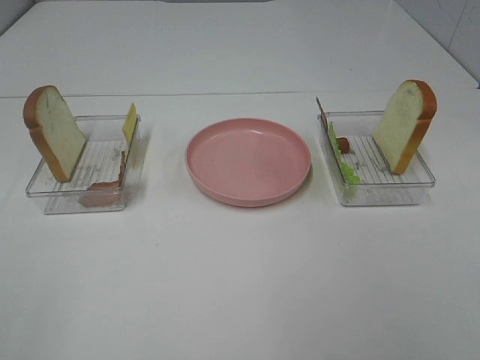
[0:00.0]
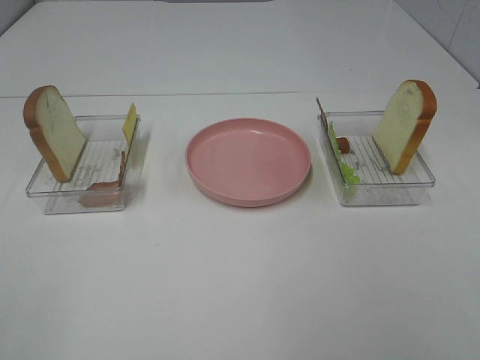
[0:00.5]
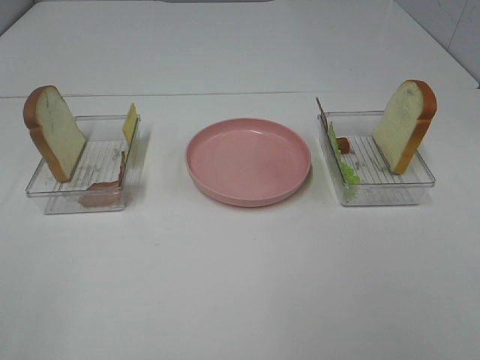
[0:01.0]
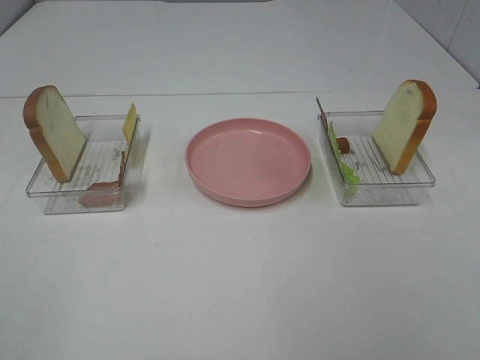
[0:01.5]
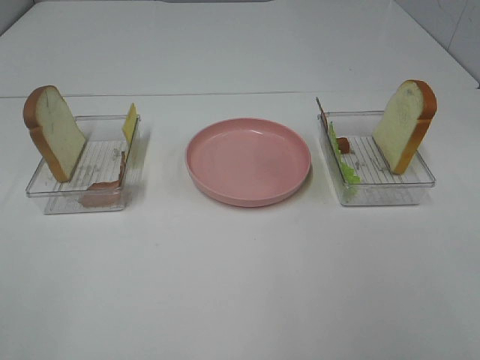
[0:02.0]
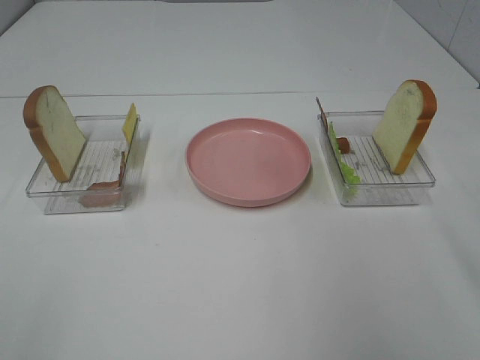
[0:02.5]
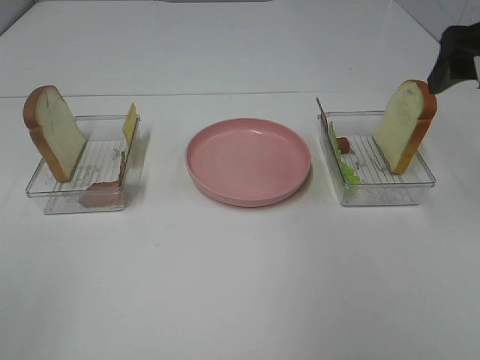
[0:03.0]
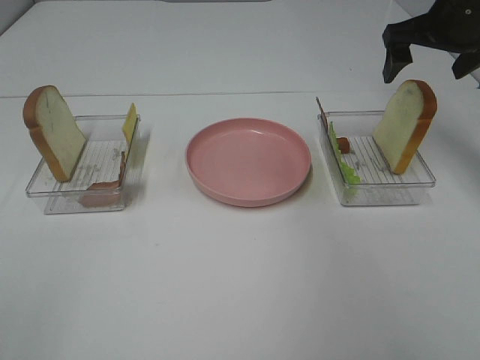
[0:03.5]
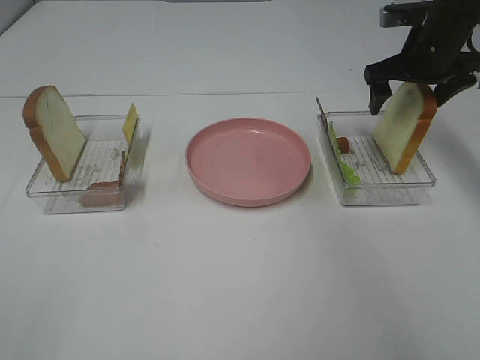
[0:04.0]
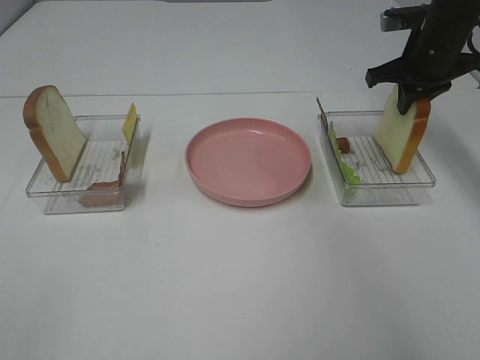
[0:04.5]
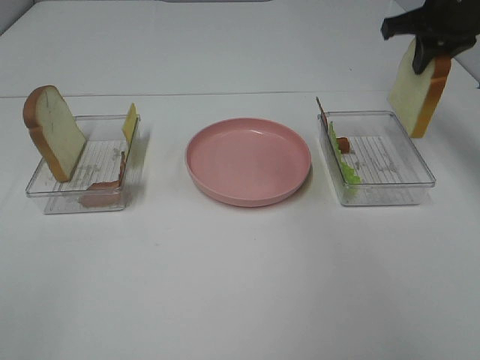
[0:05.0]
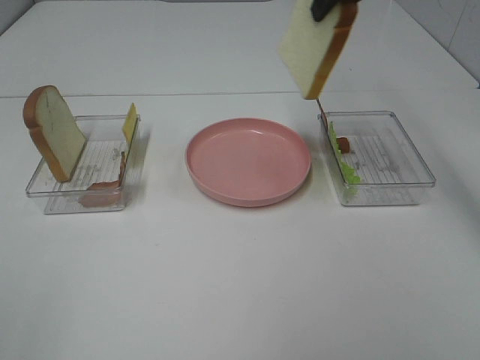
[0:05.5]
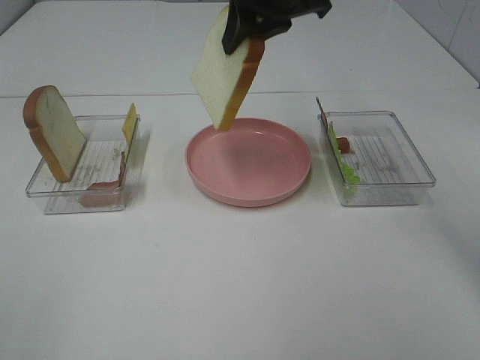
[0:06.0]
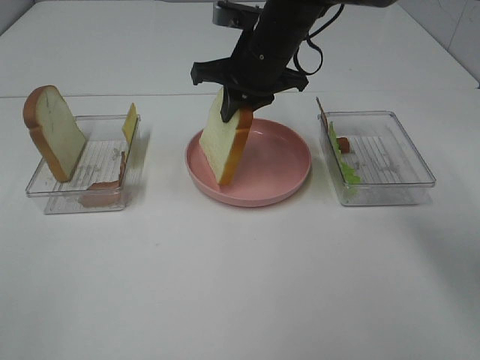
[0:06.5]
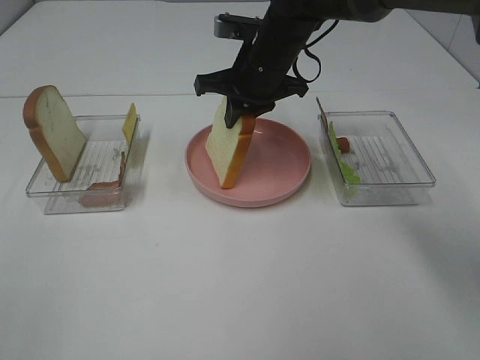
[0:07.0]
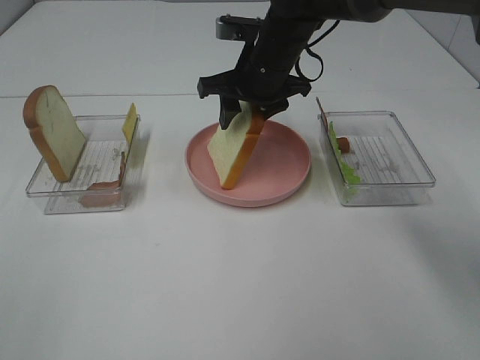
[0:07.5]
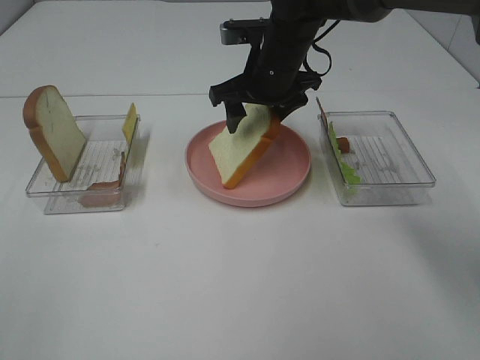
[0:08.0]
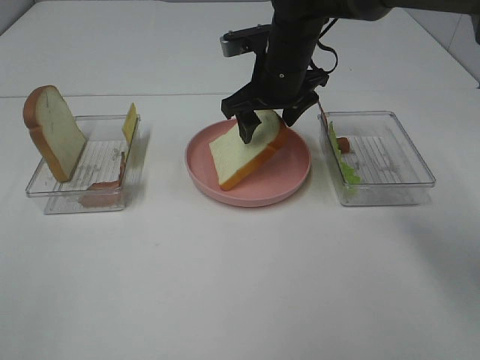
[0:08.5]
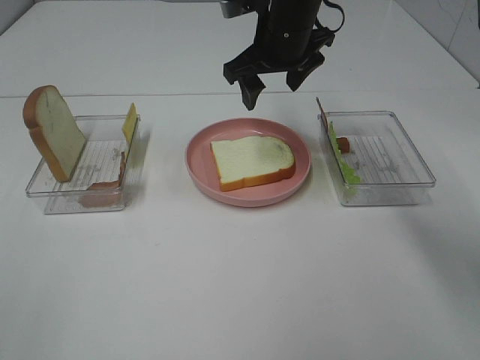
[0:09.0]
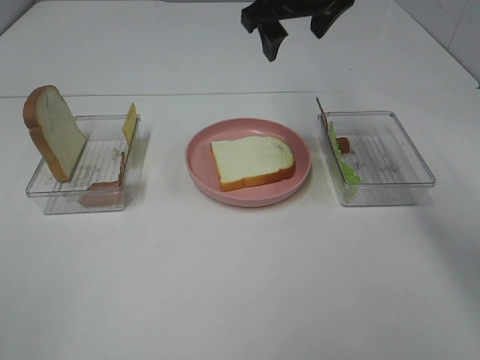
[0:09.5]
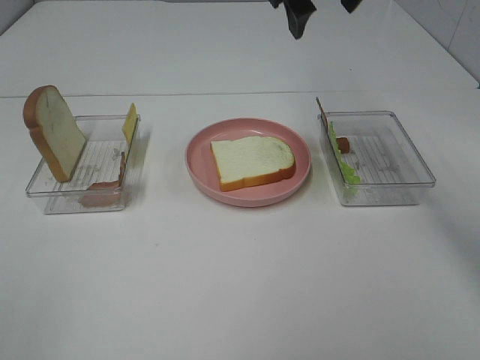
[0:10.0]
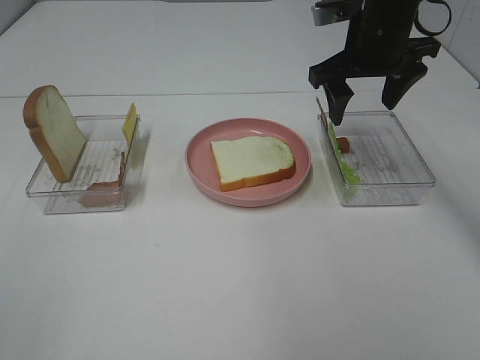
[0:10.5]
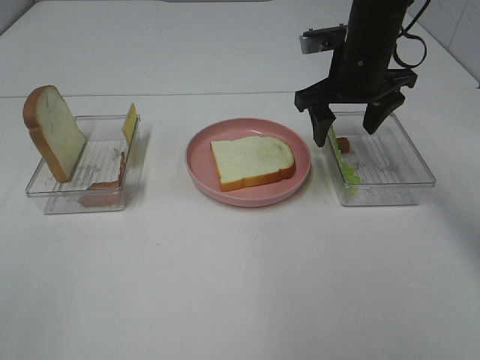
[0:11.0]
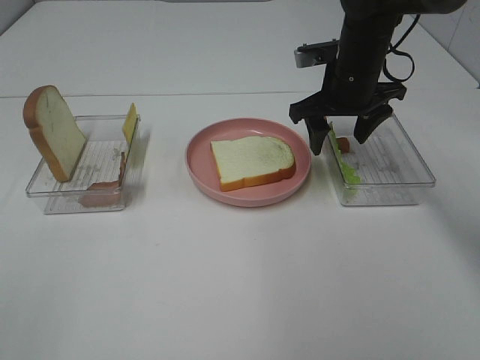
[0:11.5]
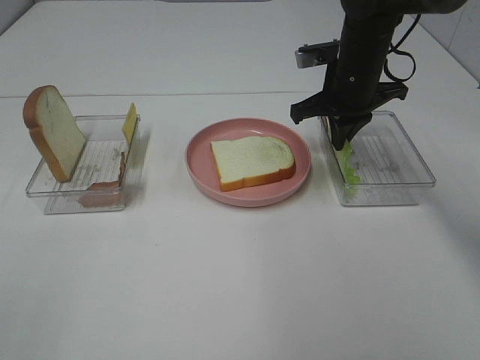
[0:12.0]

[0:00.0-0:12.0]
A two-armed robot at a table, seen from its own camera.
Task of the whole recording: Make sandwiches.
Step, 0:00.0 to 0:04.0: Right hand:grab the bread slice.
Step, 0:04.5 to 0:08.5: Right hand:place the bread slice on the plate.
0:02.0 to 0:04.0: The right gripper heads forward, covering some 40 cm.
0:04.0 to 0:06.0: The right gripper shifts approximately 25 cm to the left and upward, and closes its fingers.
0:06.0 to 0:08.0: The right gripper goes about 15 cm downward, and opens up.
0:08.0 to 0:10.0: The right gripper travels upward by approximately 15 cm.
0:10.0 to 0:12.0: The right gripper travels downward by roughly 15 cm, and closes its fingers.

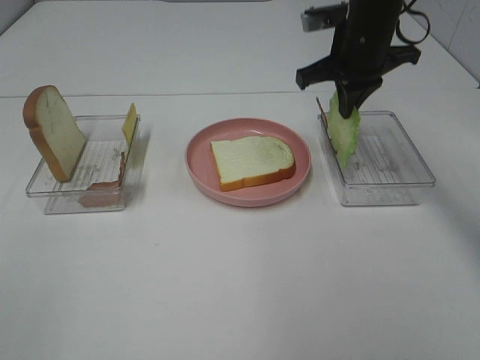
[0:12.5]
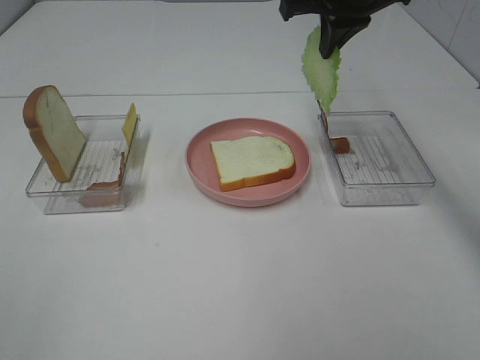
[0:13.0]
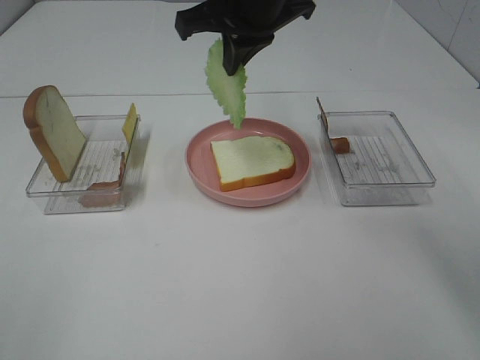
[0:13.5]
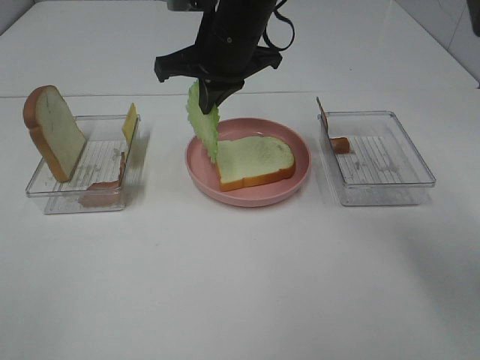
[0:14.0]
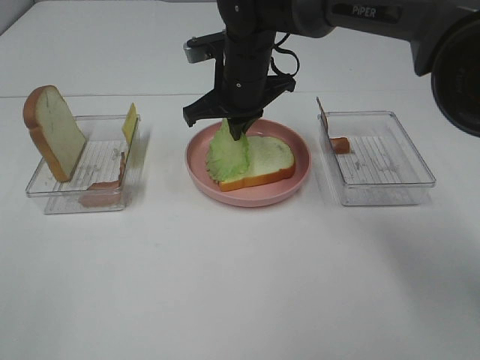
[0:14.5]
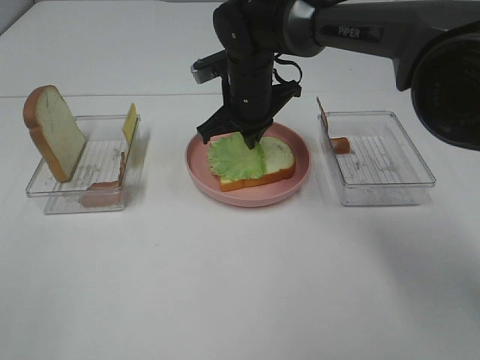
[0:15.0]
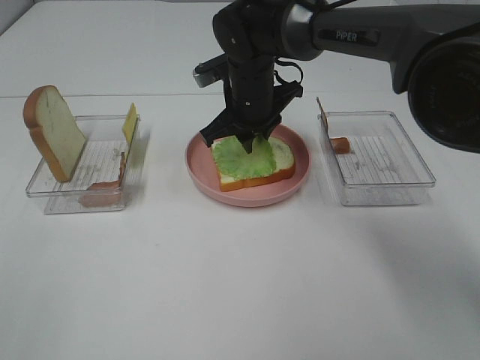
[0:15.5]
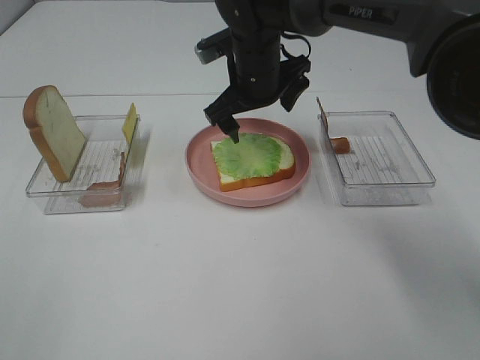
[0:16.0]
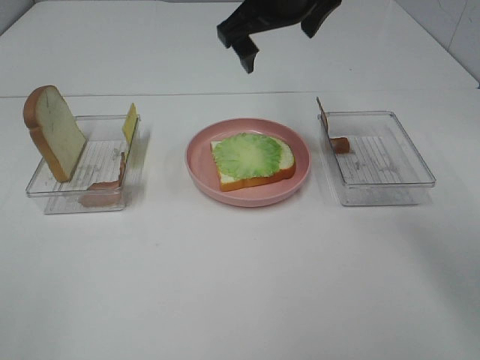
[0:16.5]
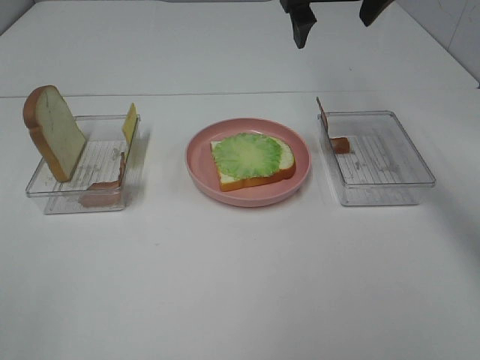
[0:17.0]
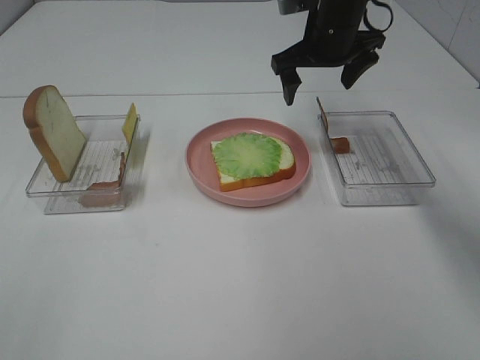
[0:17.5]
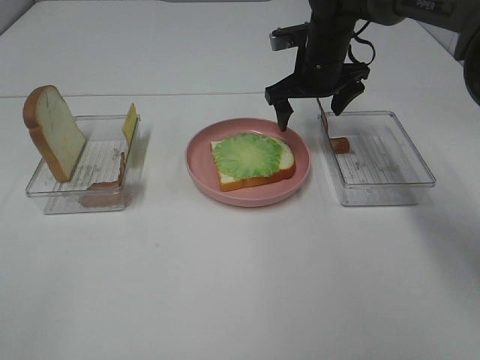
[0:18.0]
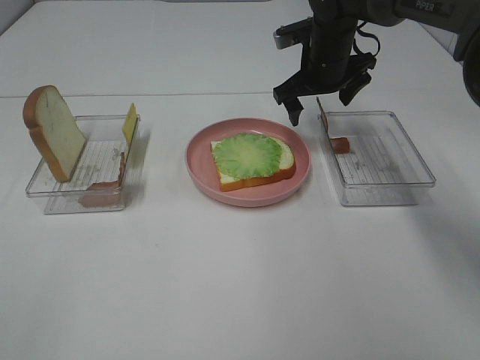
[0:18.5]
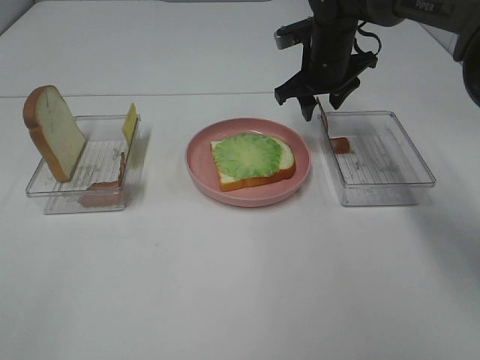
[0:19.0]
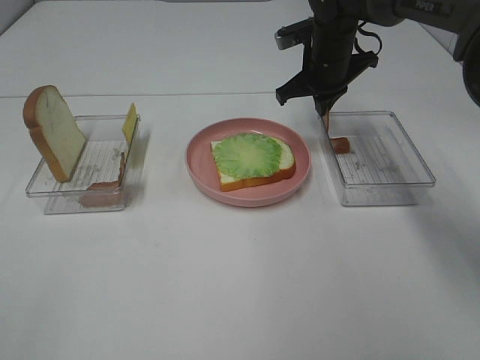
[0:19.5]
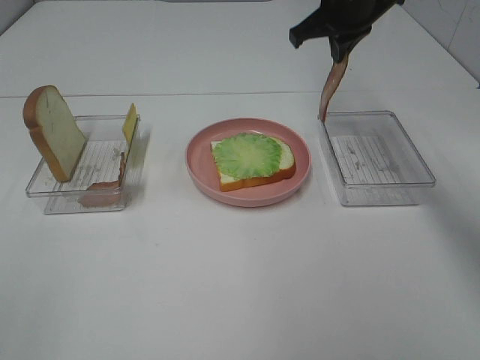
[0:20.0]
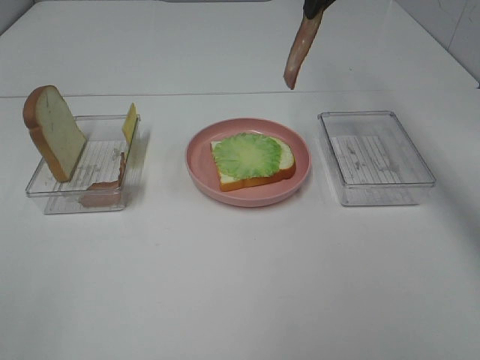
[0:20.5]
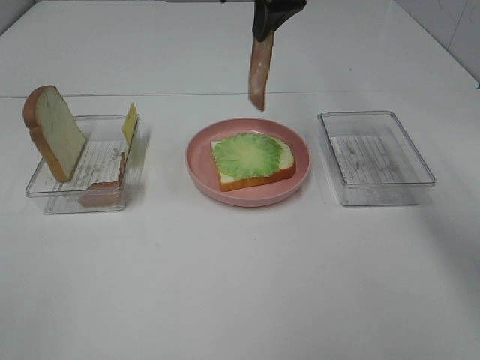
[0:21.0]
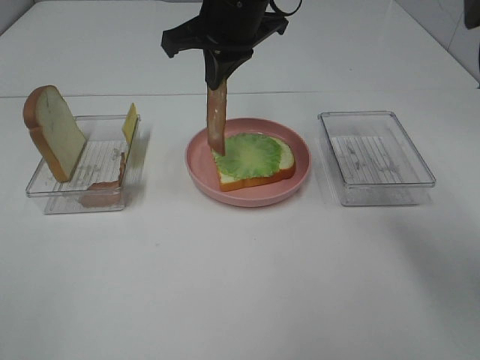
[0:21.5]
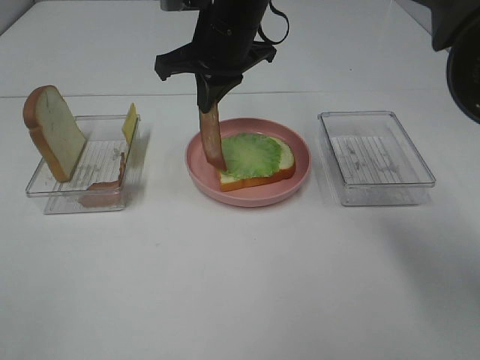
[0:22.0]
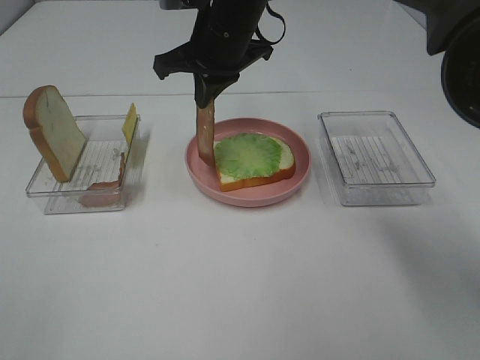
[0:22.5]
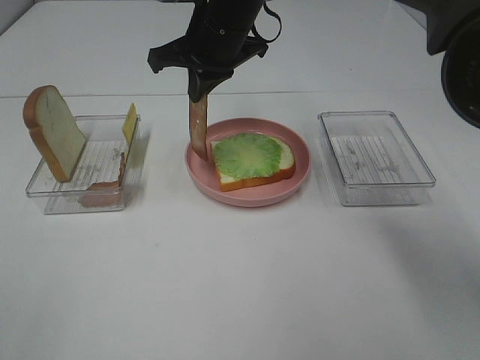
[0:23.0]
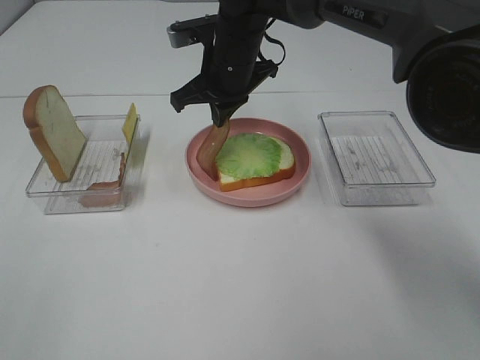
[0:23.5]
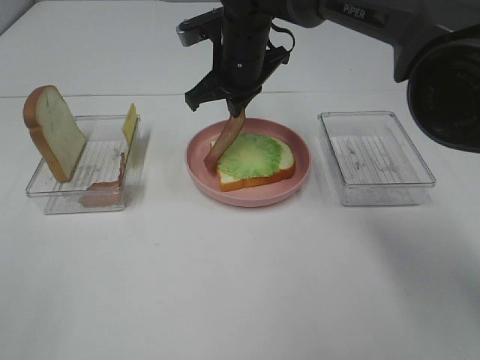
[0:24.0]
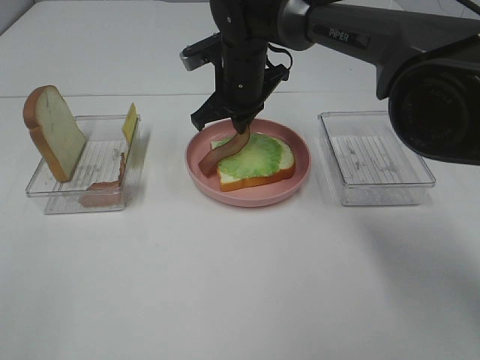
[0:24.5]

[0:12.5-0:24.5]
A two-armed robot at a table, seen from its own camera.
Task of the whole recording: Make sandwiches.
Step, 0:12.5 to 0:16.0: Right hand:place the lettuce slice on the bread slice.
Step, 0:16.5 to 0:19.0: Right hand:grab the bacon.
0:12.5 to 0:14.5: The right gripper is displaced to the left and downward by some 15 cm.
0:14.5 to 0:16.5: The right gripper is displaced upward by approximately 15 cm, and opens up.
0:16.5 to 0:18.5: The right gripper moves downward, forward and to the right, approximately 20 cm.
0:18.5 to 0:20.5: The right gripper is displaced upward by about 15 cm, and closes its fingers.
0:20.5 to 0:22.5: The right gripper heads to the left and downward, covering some 15 cm.
0:22.5 to 0:24.5: The right gripper shifts approximately 10 cm downward.

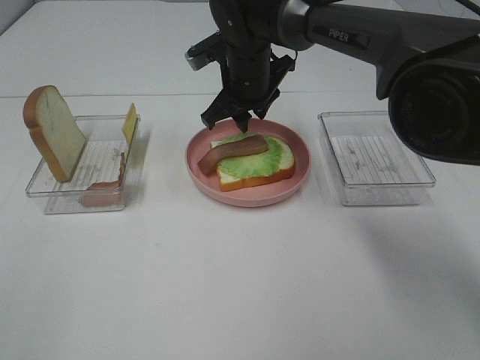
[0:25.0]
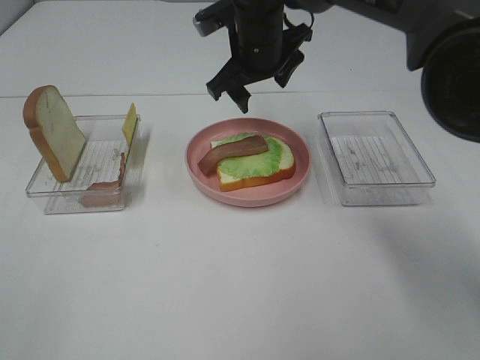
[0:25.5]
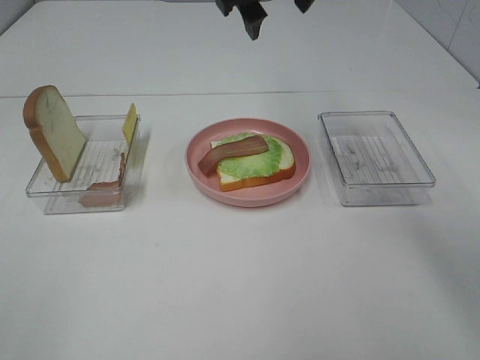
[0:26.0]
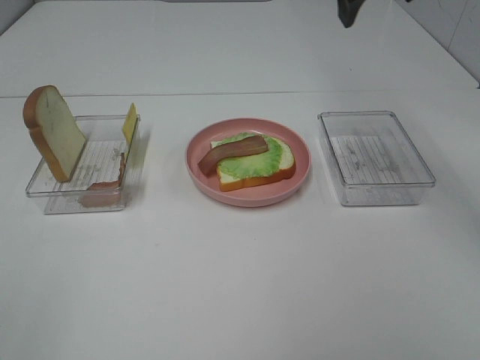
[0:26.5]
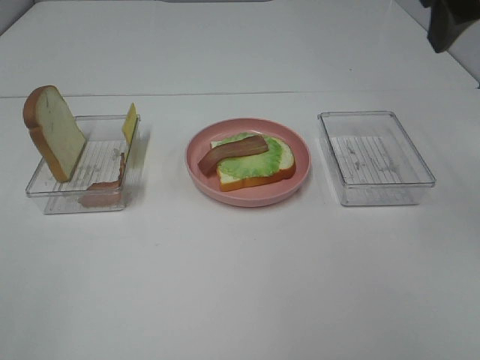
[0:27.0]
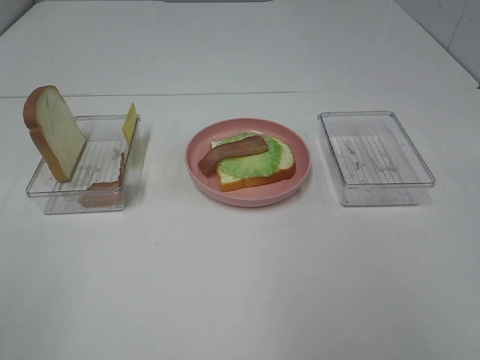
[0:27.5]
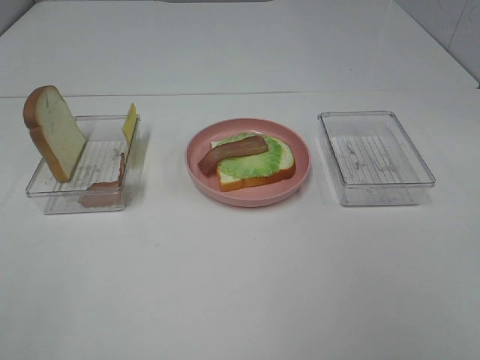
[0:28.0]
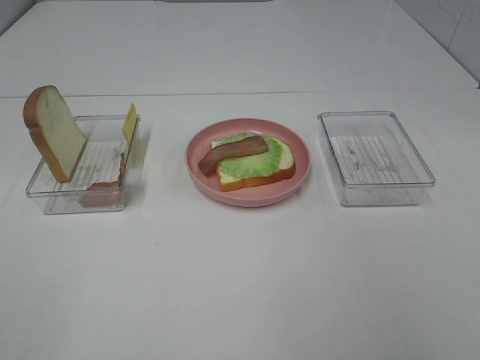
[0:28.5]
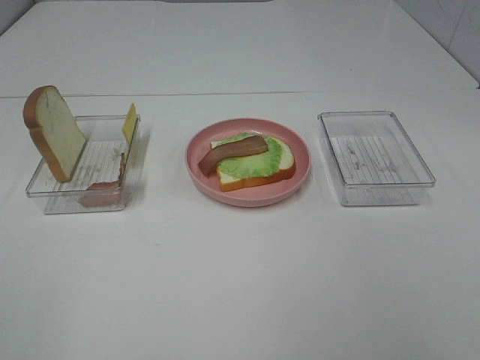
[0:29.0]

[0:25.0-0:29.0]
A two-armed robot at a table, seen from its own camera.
Task of the whole recording: Make sandwiches.
0:25.0 to 0:27.0: The right gripper shifts approximately 35 cm upward, backward and to the right.
0:27.0 to 0:29.0: The right gripper heads backward and downward, covering some 25 cm.
